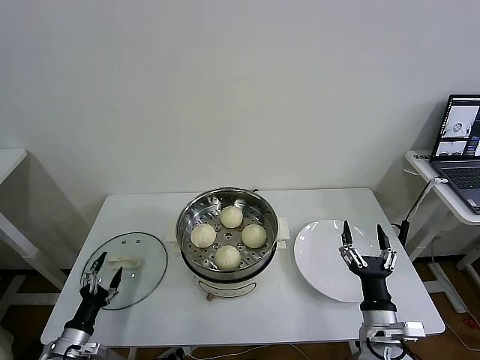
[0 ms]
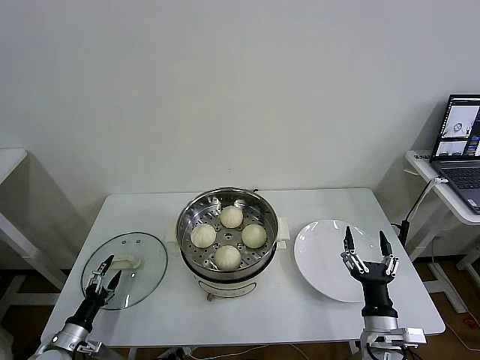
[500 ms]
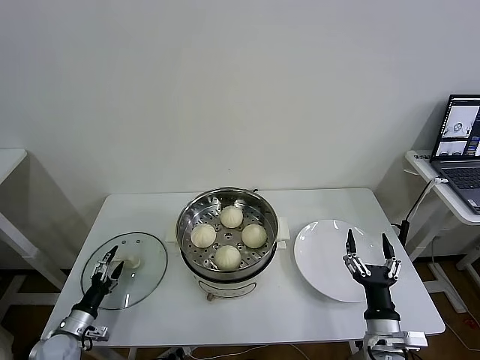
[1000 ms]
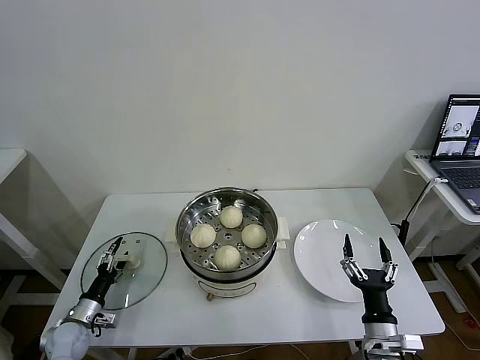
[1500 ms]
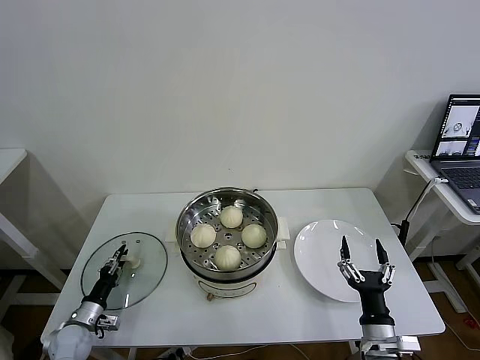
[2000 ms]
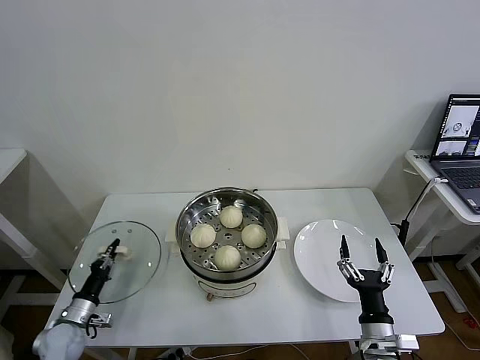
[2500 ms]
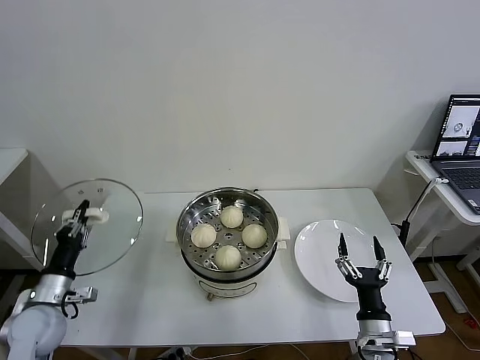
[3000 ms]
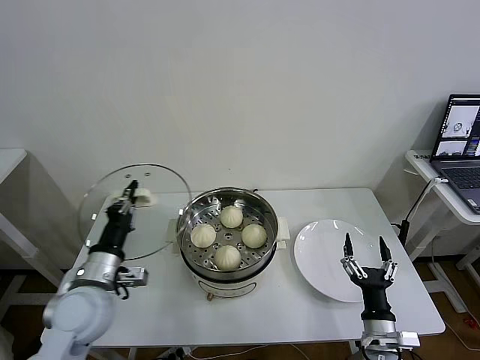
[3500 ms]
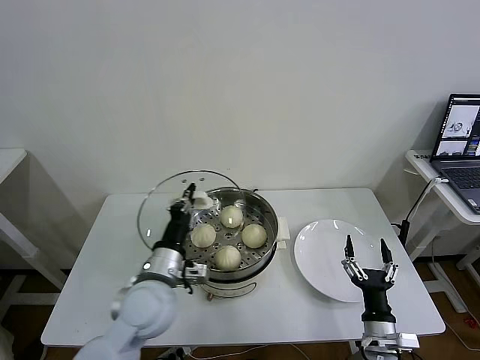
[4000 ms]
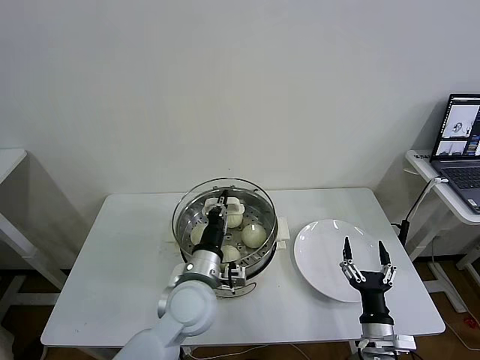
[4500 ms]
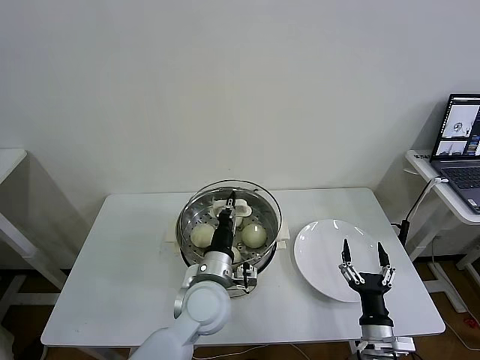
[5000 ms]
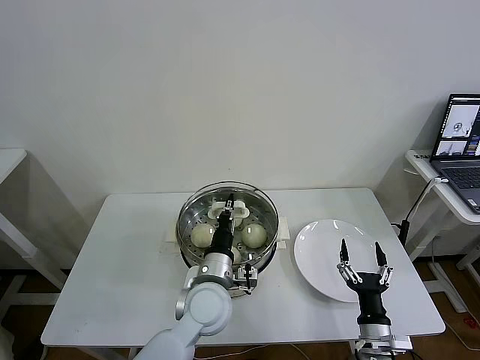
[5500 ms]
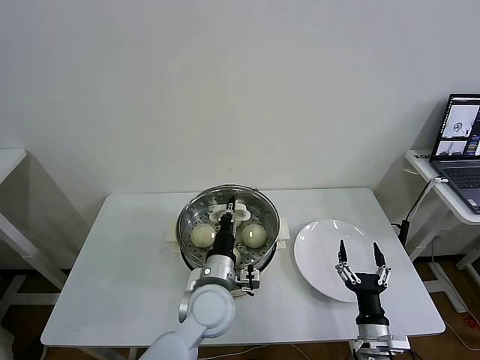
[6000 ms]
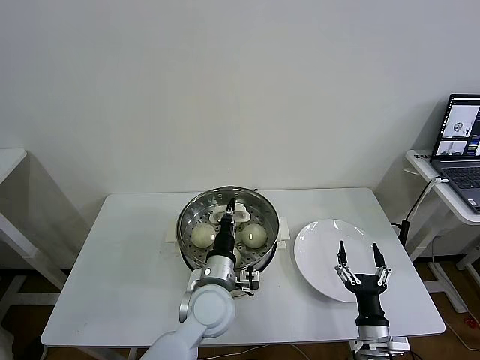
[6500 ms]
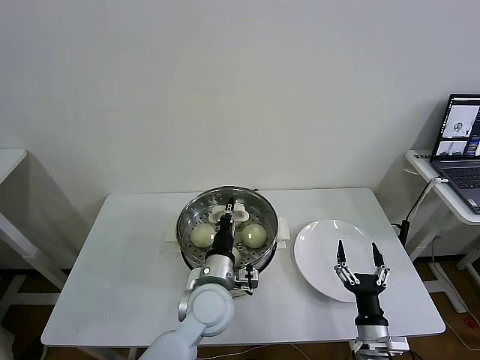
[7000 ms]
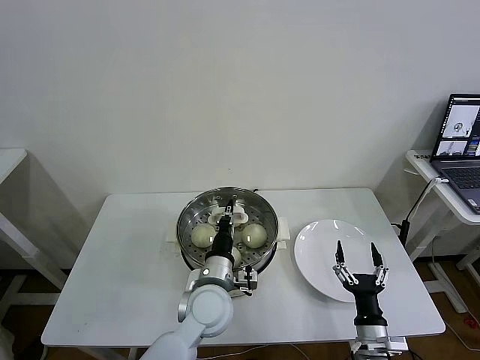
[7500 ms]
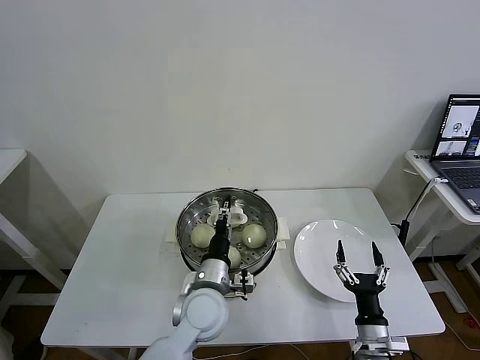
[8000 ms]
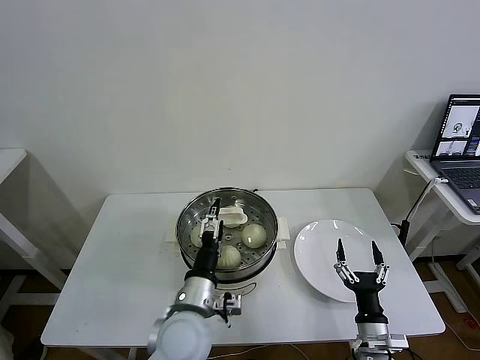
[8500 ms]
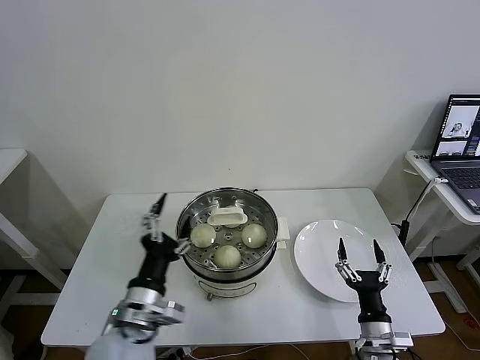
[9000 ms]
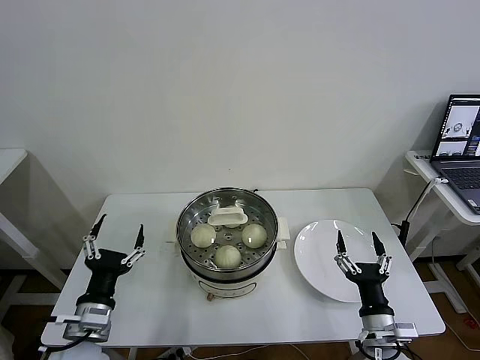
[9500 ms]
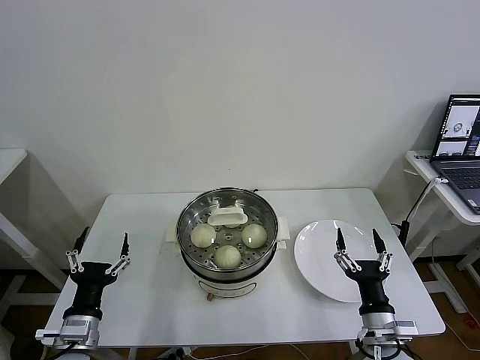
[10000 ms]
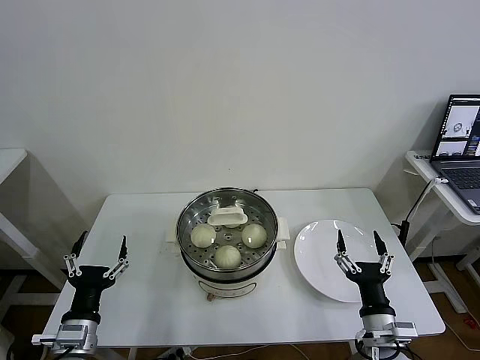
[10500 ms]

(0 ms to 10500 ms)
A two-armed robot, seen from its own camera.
Task of the whole recording: take steamed baozi put them in steamer then cover it.
Step, 0 ms - 2000 ms: Grasp the pot lid with left gripper.
Step, 2500 ms - 8000 ms: Place the pot lid on the steamer with left gripper.
0 ms - 2000 ms: The left gripper heads forward, covering approximately 10 cm, and closes up.
2000 ms - 4000 ms: The left gripper heads to the right and upward, covering about 35 cm, and closes.
4000 ms - 6500 ms: The left gripper is displaced to the right and downward by about 15 cm.
6500 ms - 8500 ms: The left gripper moves backward, approximately 5 cm, and opens.
8500 ms - 10500 ms: The right gripper goes some 5 cm upward; the left gripper is displaced to the left by roughly 20 cm.
